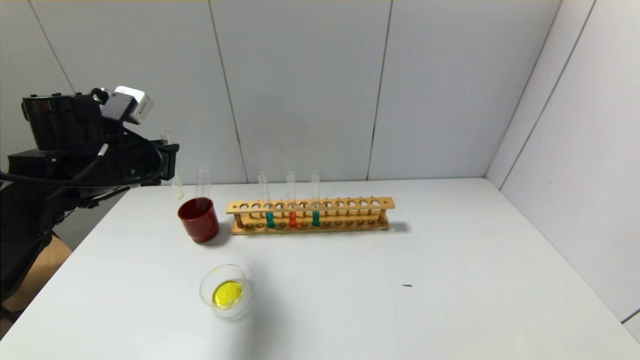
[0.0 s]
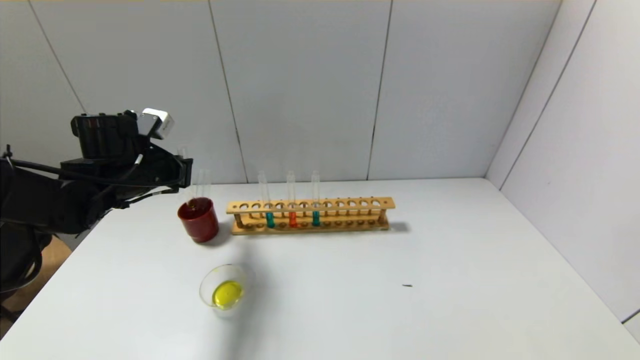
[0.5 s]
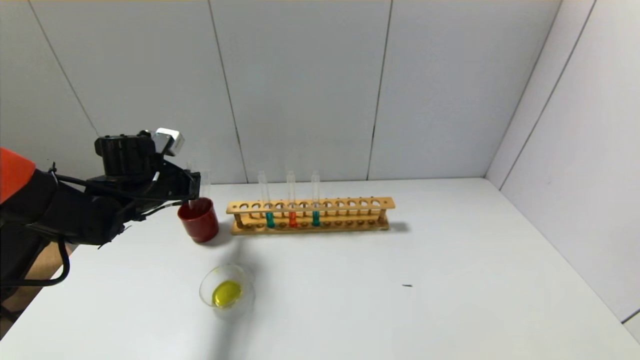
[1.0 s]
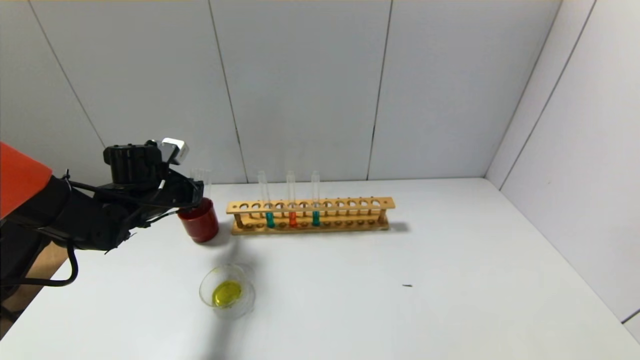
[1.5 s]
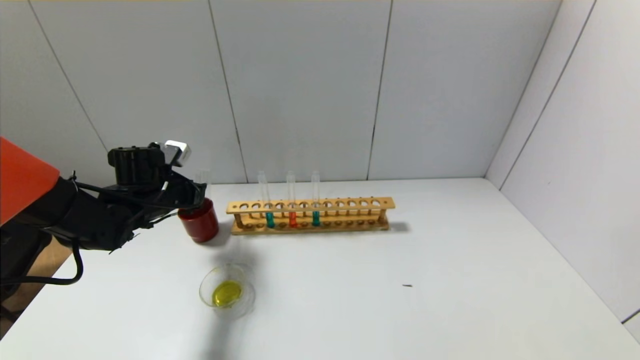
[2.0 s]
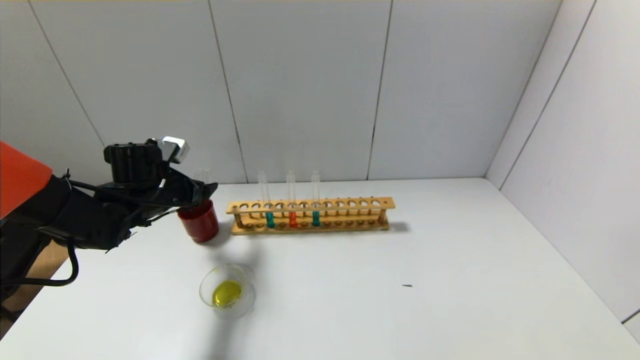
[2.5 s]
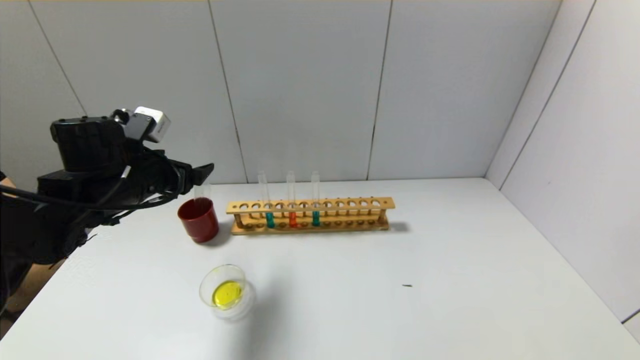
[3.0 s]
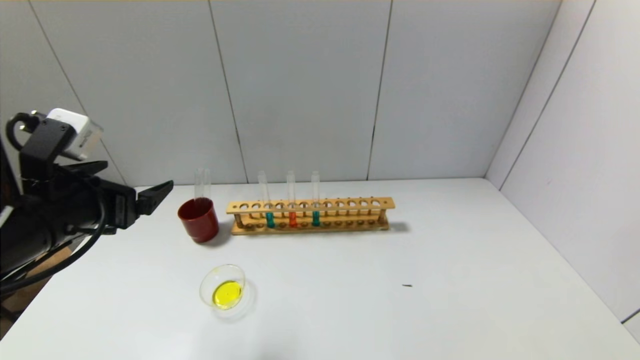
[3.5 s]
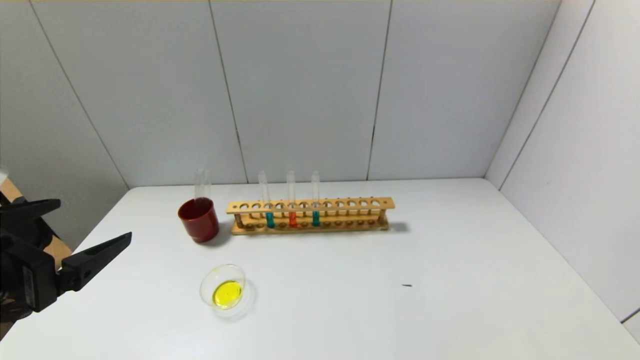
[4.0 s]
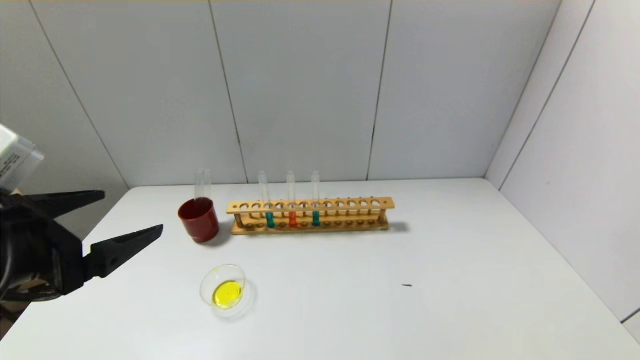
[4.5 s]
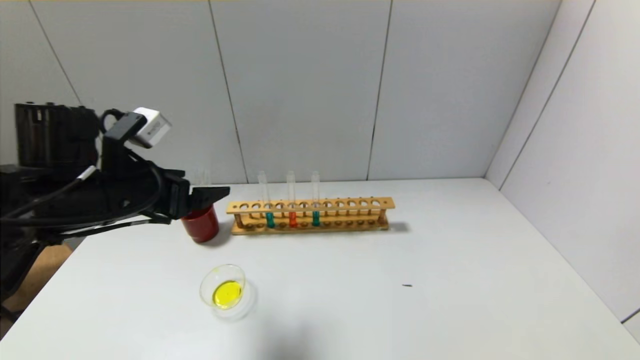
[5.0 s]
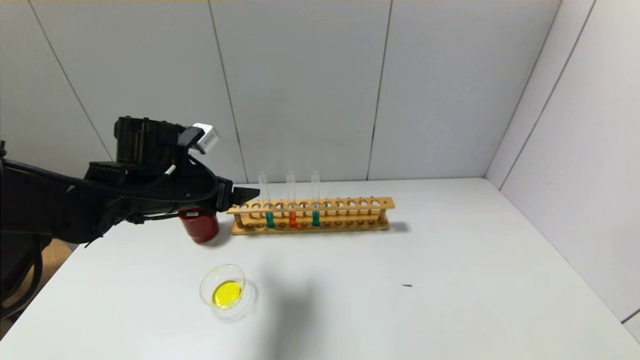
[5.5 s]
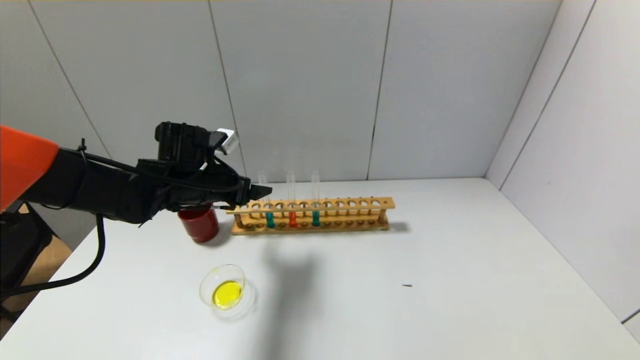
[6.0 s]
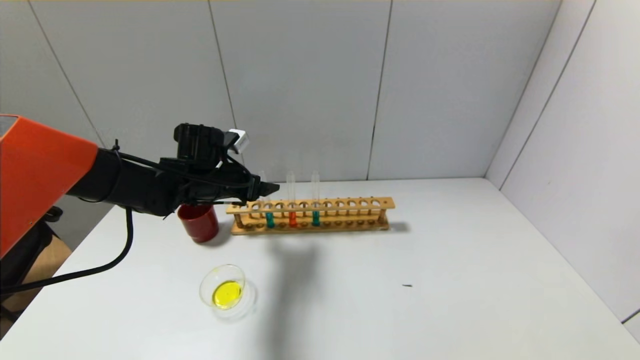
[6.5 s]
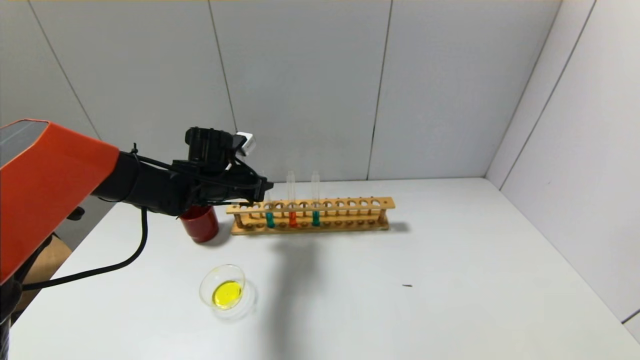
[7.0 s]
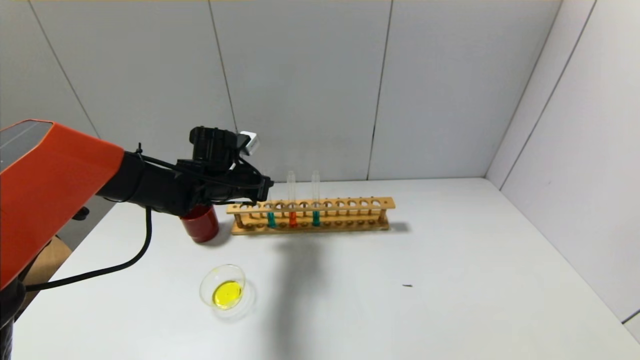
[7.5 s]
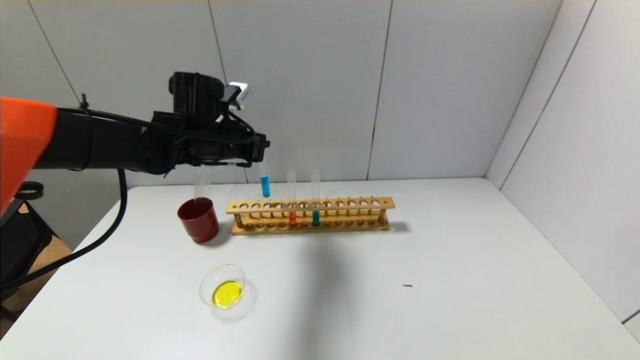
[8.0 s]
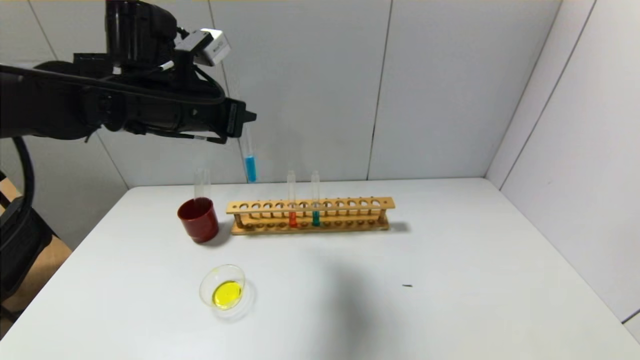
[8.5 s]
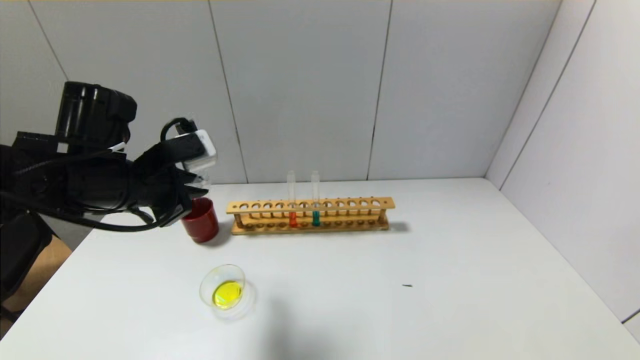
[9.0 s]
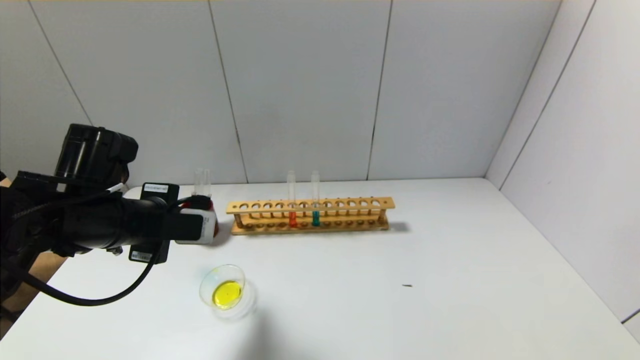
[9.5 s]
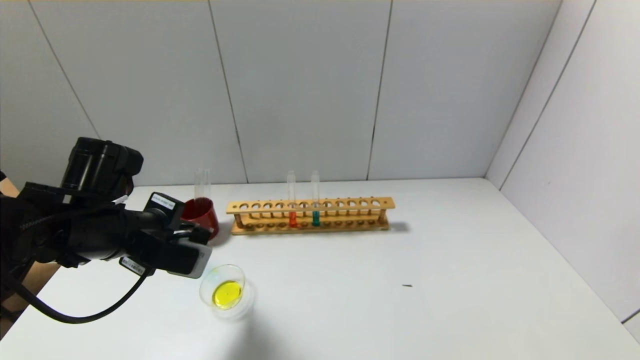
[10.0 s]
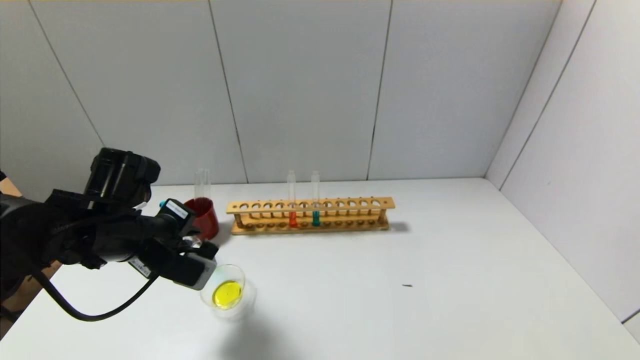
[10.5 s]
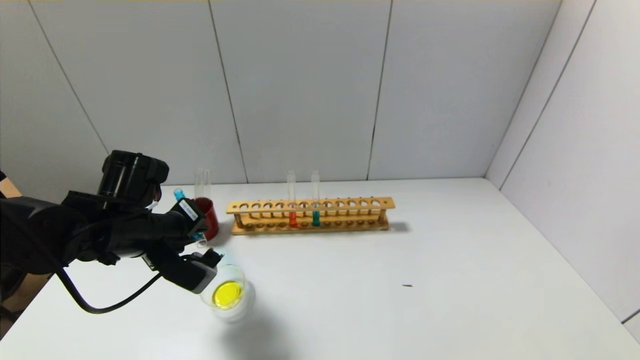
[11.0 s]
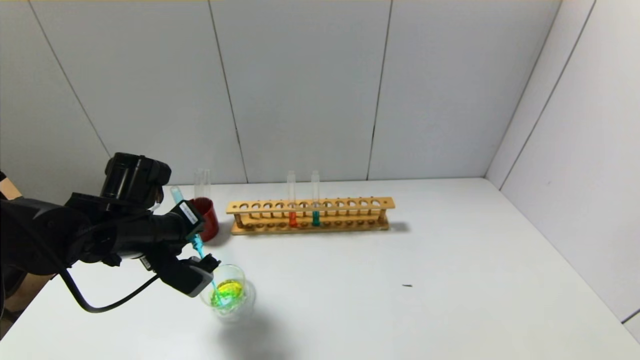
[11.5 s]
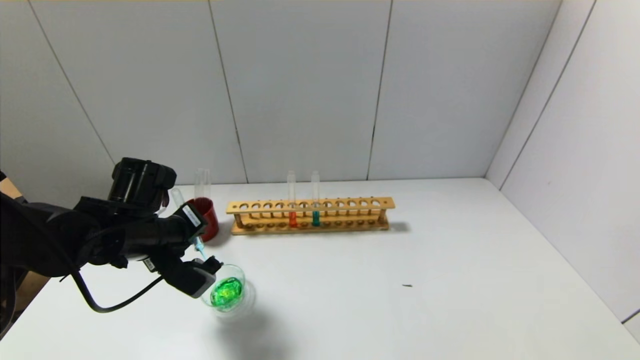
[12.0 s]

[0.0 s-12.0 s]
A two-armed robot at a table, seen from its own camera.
Step, 0.0 to 2.0 s: Place the test tube into the brown cup with the left gripper.
Step, 2.5 to 7.0 s: Grasp the blue reagent with the left gripper.
0.0 to 2.0 s: The left gripper is displaced downward and forward by about 10 cm.
2.0 to 4.0 s: The left gripper heads backward and upward, covering roughly 30 cm, and opens up.
4.0 to 6.0 s: The left gripper shifts approximately 25 cm forward.
6.0 to 8.0 s: The left gripper moves upward, about 10 cm, and closes up.
8.0 to 10.0 s: The left gripper heads backward, to the left and downward, covering some 15 cm.
10.0 to 12.0 s: The left gripper moves some 5 cm.

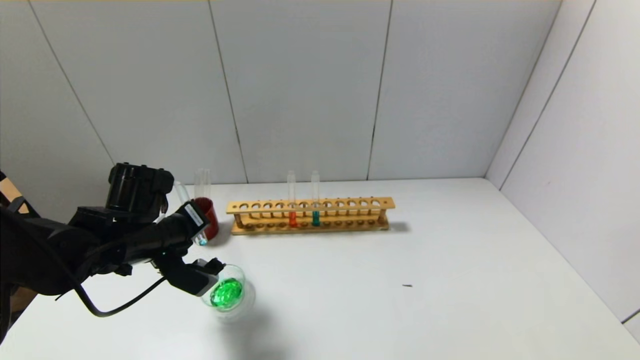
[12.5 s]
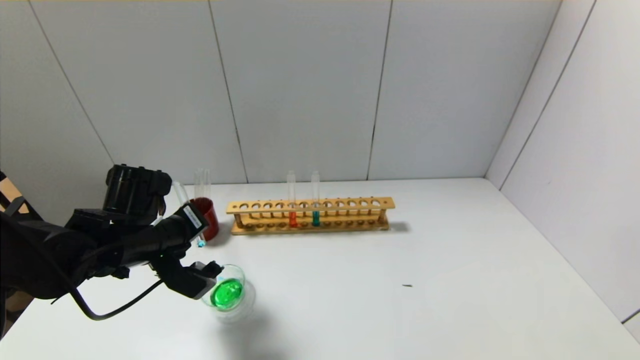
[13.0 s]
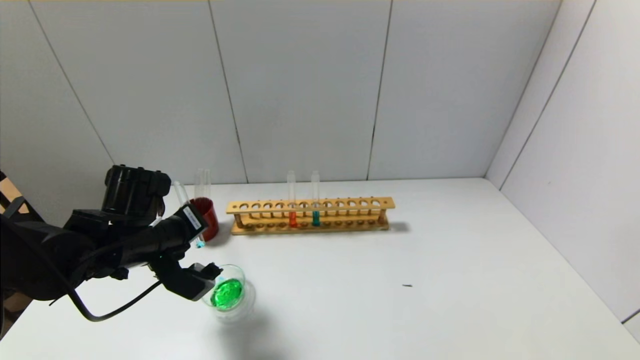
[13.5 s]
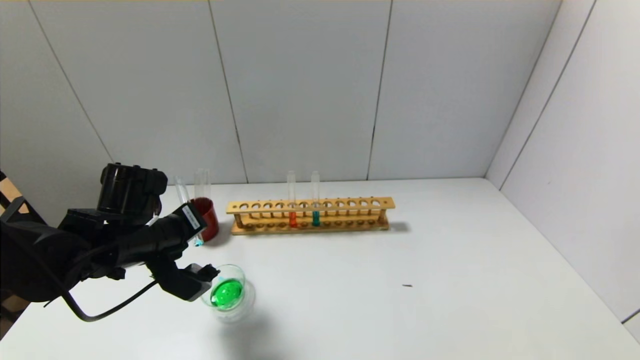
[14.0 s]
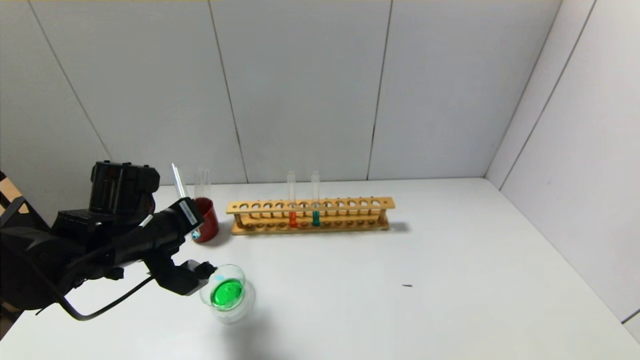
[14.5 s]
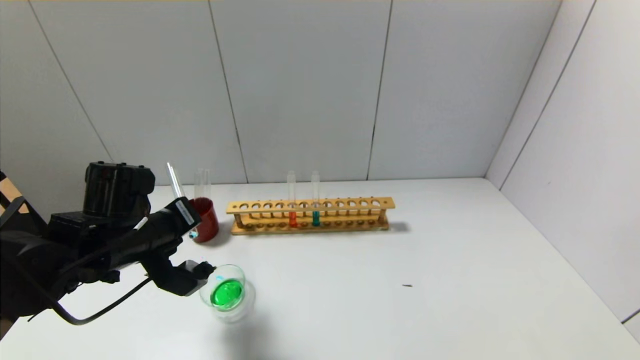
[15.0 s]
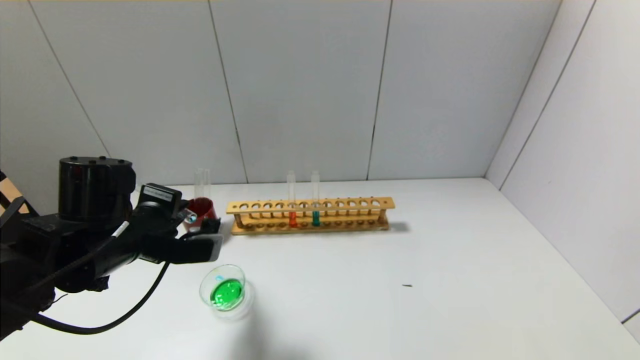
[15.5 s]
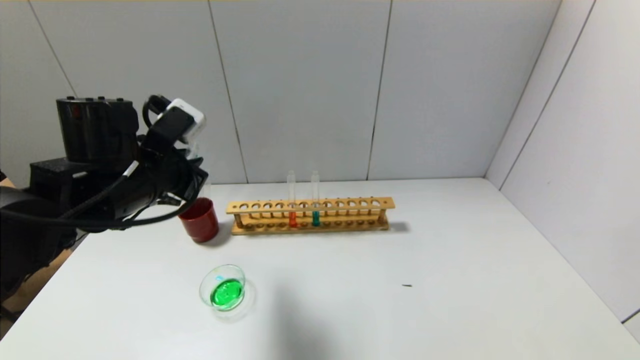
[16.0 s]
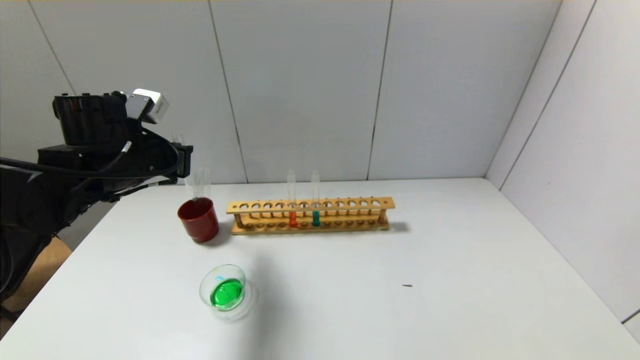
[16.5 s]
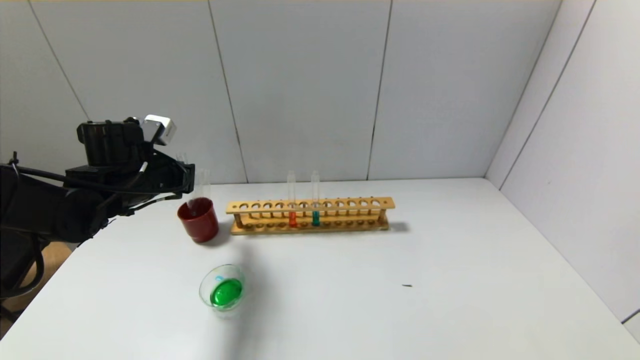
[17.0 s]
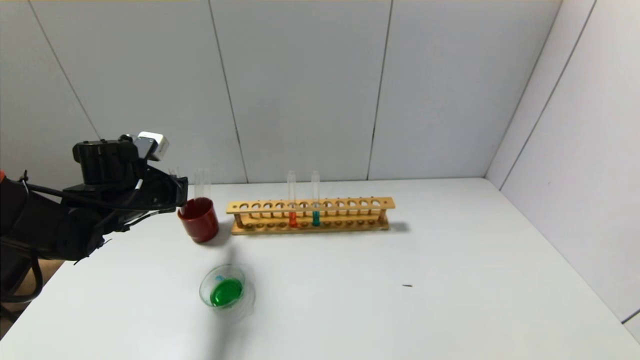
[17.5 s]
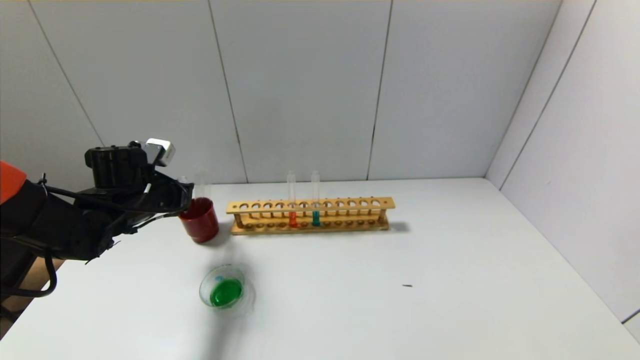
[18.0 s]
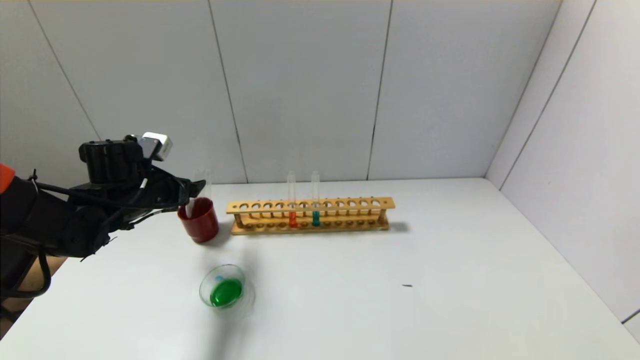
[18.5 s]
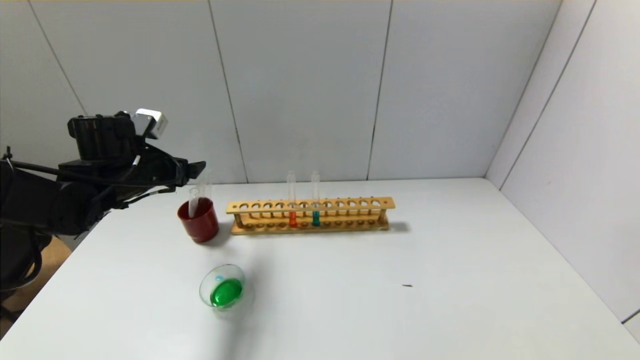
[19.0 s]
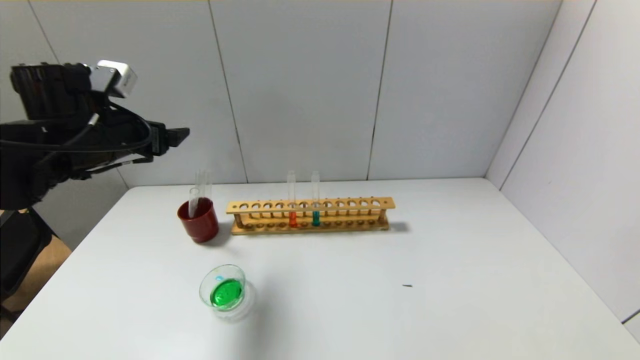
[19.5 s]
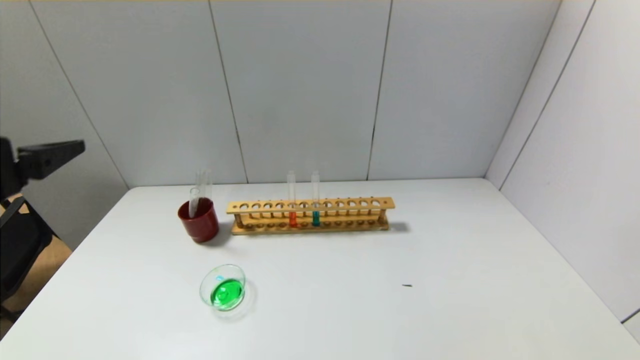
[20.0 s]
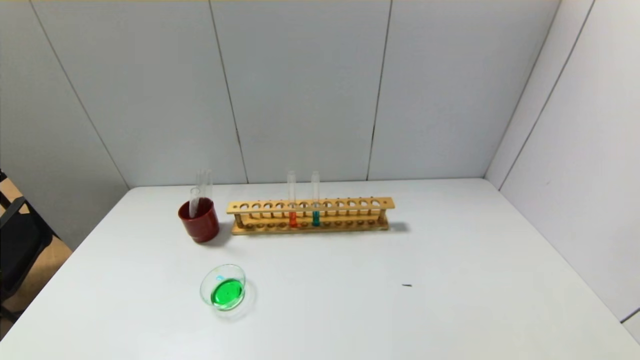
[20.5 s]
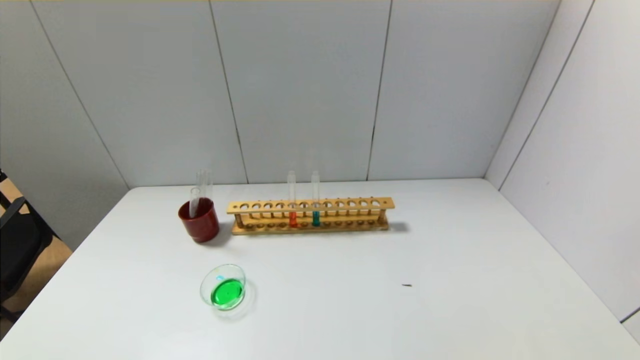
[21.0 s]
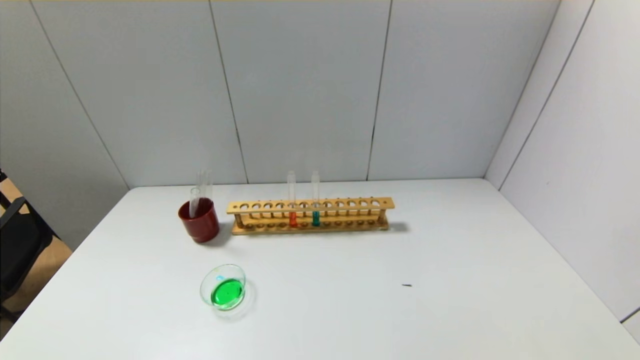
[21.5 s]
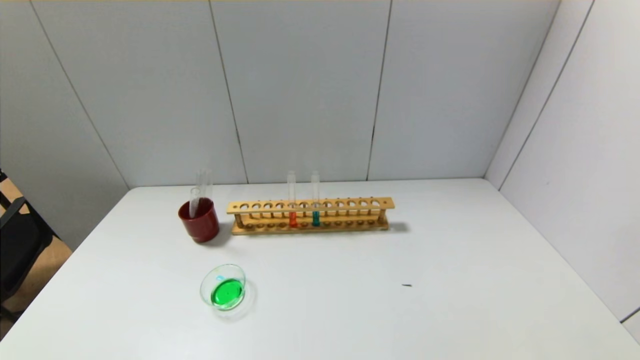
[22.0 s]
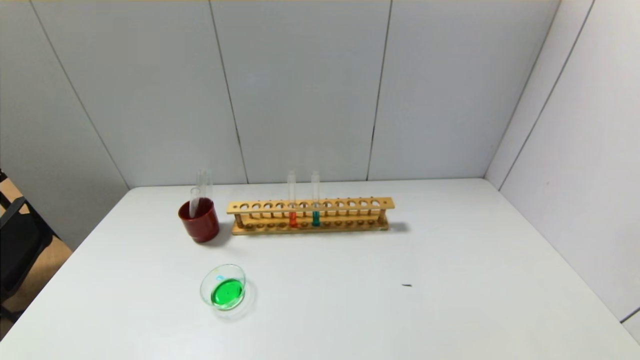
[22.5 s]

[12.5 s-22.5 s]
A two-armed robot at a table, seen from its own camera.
Step, 12.5 to 15.0 s: Pour the blue reagent into the graduated cylinder with the left gripper.
Step, 15.5 to 18.0 s: Place the test tube into the brown cup with the left gripper.
12.5 to 14.5 s: There are only small adjustments of the grippers.
14.5 to 16.5 s: The left gripper goes some 10 cm upward and forward.
16.5 to 18.5 s: The left gripper travels downward by roughly 5 cm, and opens up.
18.5 to 20.5 s: The left gripper travels backward by approximately 35 cm.
